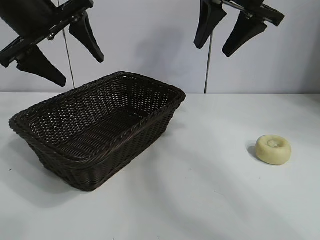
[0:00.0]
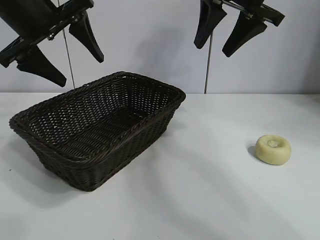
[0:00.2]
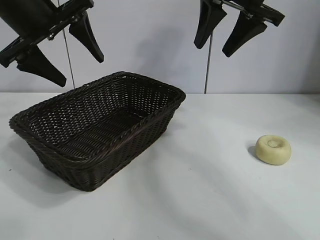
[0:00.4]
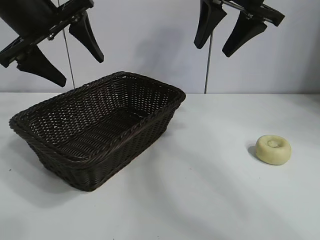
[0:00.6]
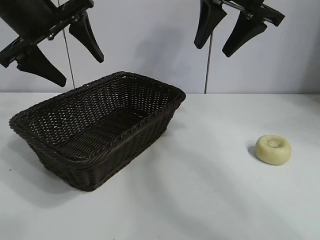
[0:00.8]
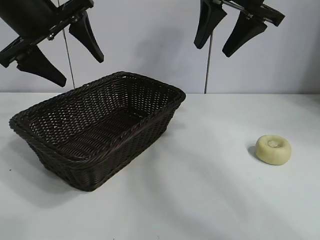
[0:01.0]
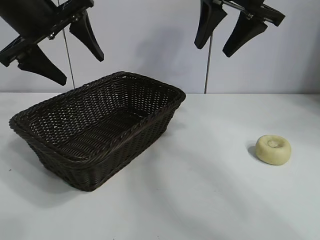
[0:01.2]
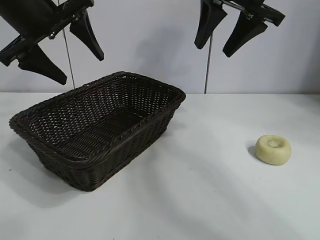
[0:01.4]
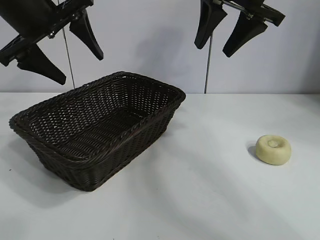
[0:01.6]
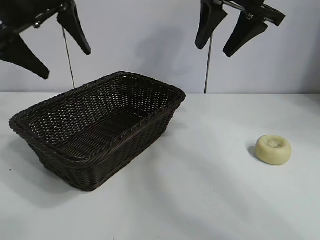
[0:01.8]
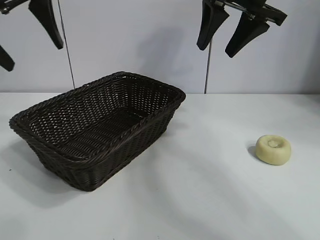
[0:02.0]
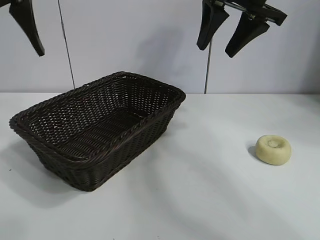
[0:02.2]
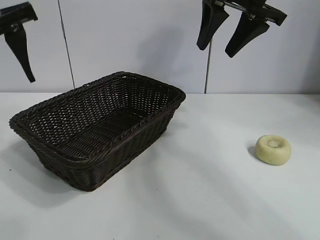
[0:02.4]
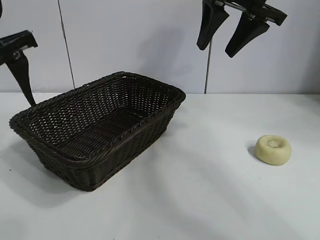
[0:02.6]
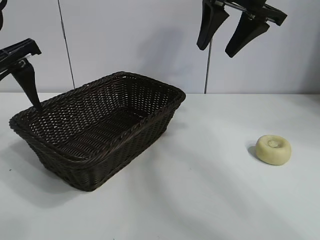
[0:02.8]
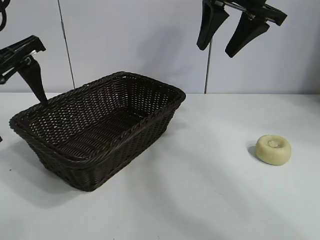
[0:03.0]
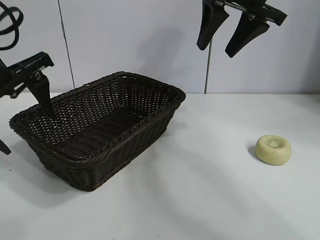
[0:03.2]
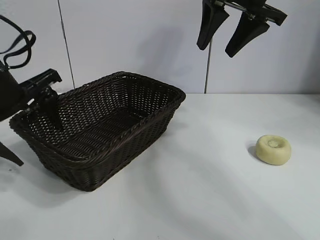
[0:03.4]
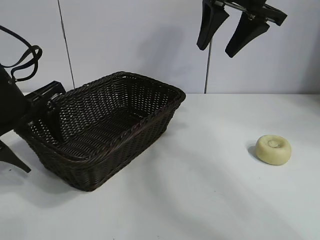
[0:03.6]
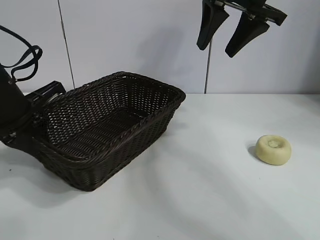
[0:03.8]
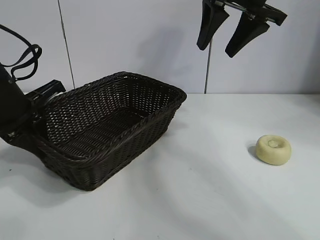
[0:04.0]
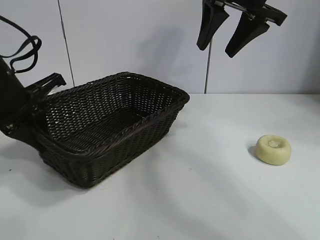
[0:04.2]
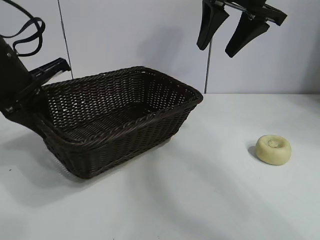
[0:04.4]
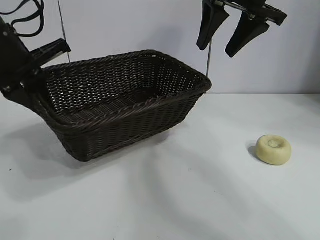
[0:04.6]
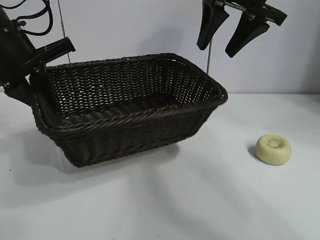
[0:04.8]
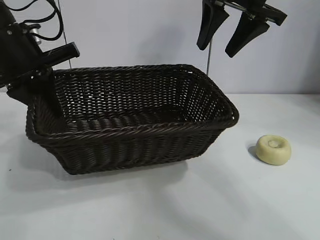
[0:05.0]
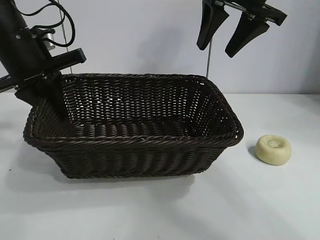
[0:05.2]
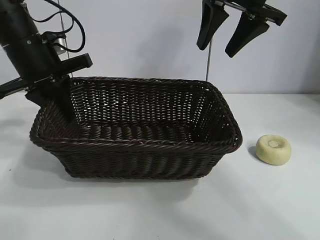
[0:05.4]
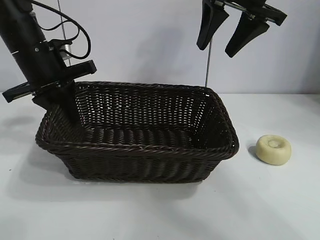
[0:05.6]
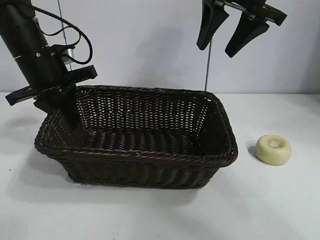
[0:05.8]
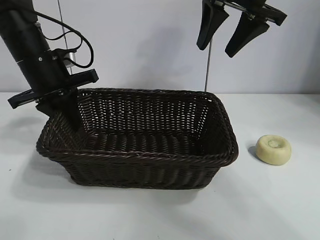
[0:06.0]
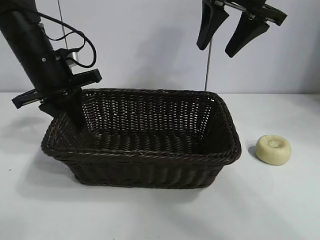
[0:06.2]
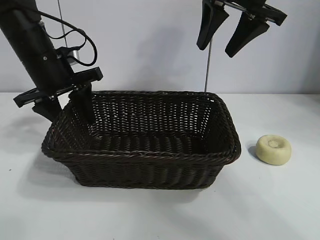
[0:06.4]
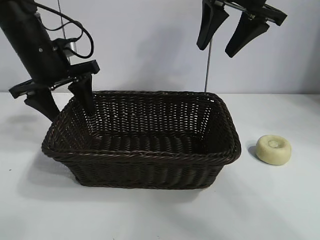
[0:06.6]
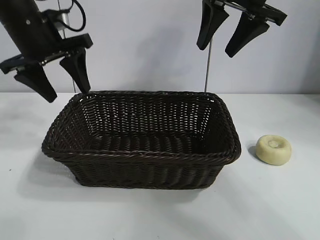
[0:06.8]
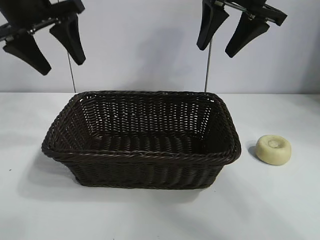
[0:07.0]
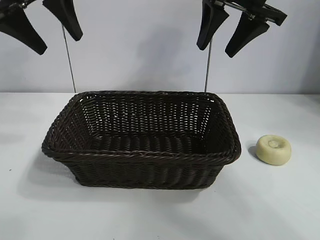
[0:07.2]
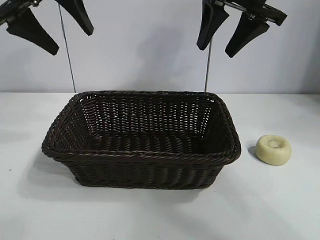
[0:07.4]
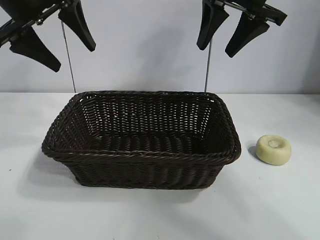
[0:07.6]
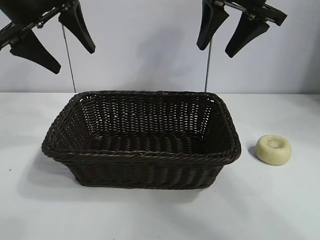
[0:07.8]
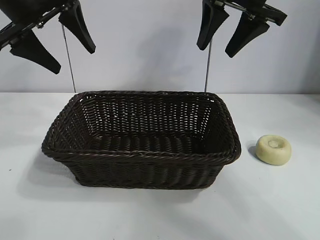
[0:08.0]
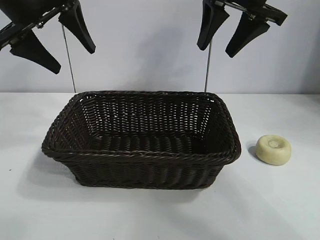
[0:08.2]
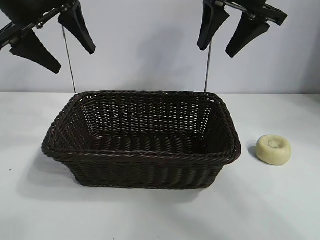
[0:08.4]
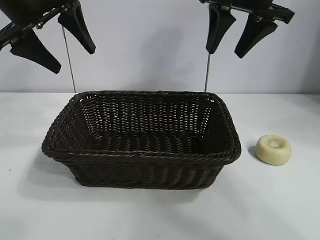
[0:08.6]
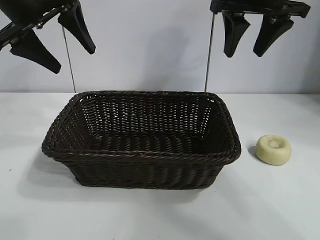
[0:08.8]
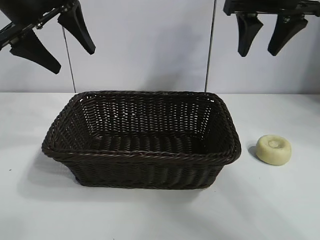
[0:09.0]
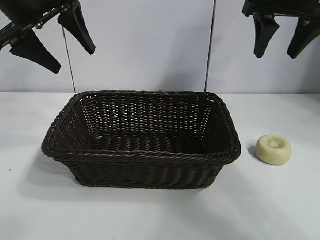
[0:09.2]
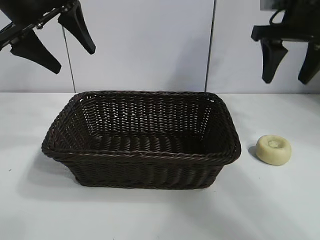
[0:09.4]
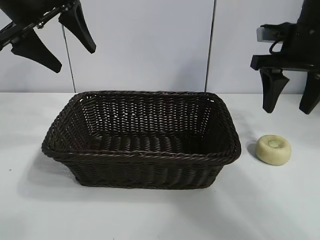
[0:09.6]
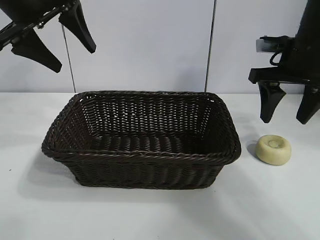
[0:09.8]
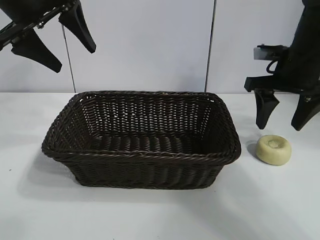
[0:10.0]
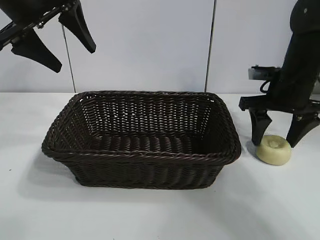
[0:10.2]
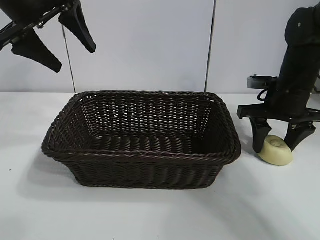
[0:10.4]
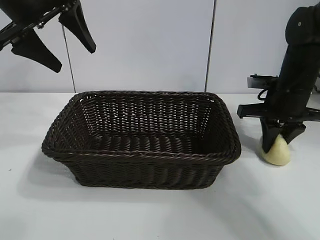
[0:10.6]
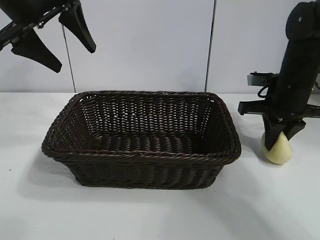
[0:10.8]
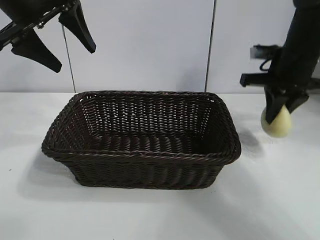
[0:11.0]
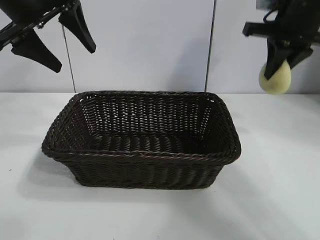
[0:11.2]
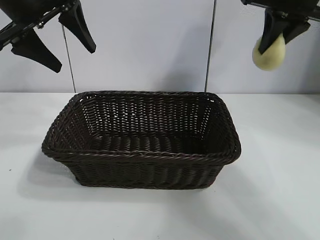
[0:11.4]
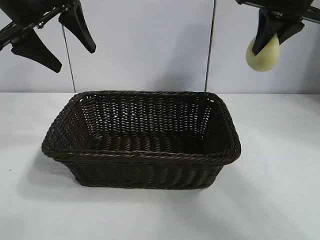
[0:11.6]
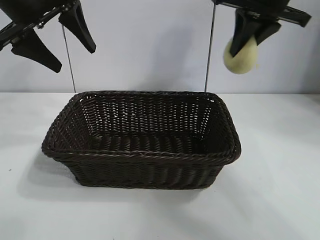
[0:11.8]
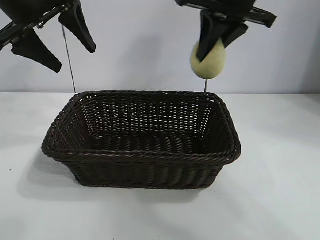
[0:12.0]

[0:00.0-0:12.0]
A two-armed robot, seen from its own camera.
Task of the whole recording: pick up the egg yolk pastry and put it into the basket.
Step, 0:01.2 to 0:03.8: Grasp the basket with left gripper.
Step, 0:04.0 to 0:06.4: Place the basket in the center of view with left gripper.
Step, 0:06.6 to 0:10.6: Grasp egg yolk pastry with right gripper.
